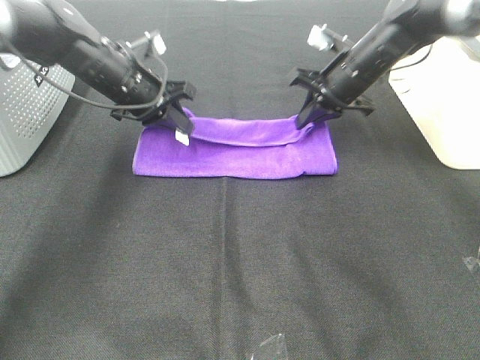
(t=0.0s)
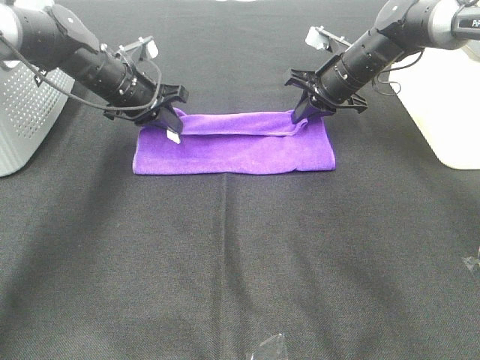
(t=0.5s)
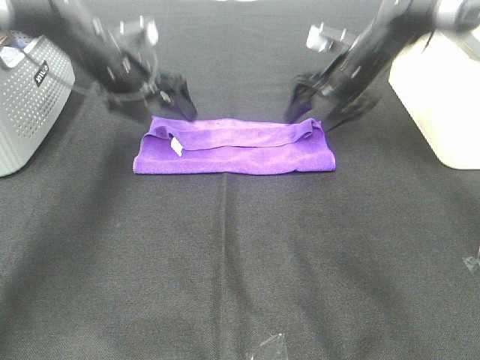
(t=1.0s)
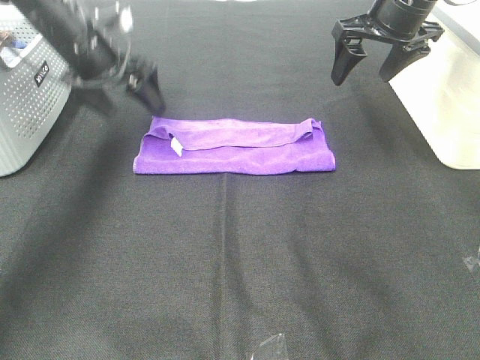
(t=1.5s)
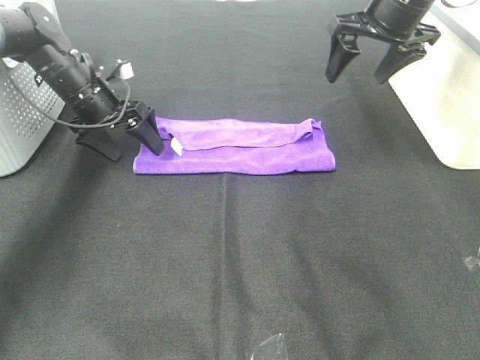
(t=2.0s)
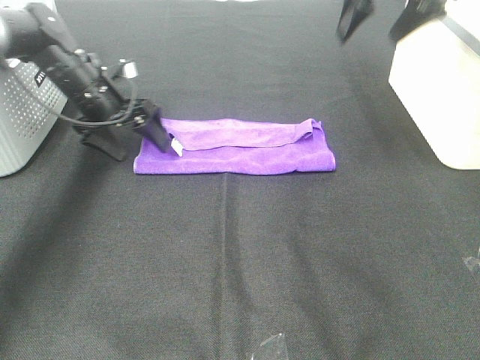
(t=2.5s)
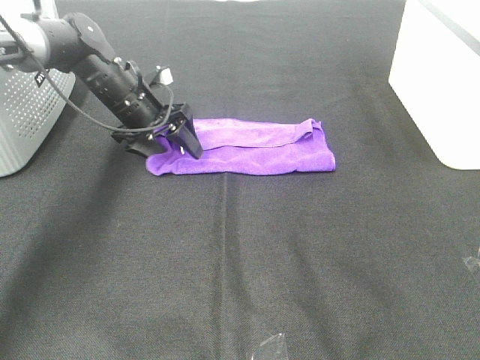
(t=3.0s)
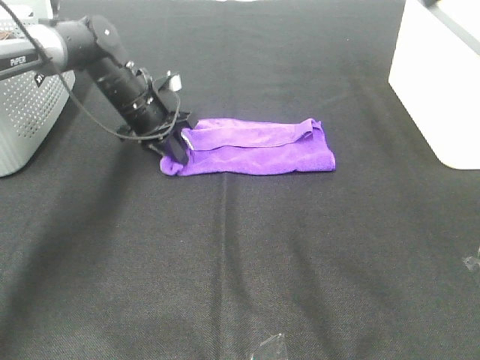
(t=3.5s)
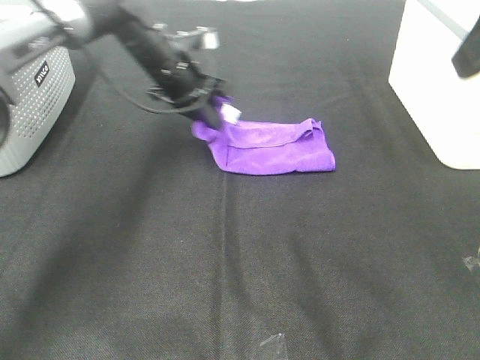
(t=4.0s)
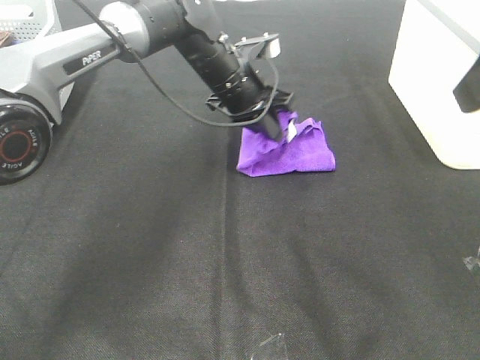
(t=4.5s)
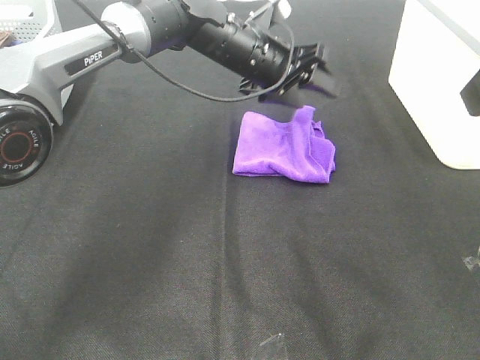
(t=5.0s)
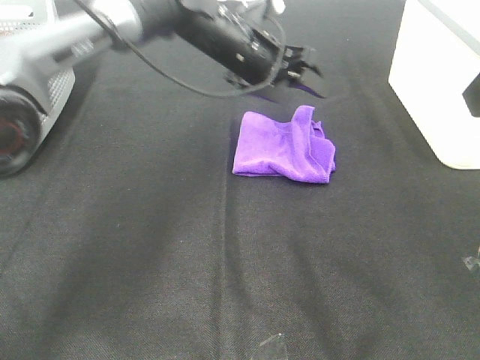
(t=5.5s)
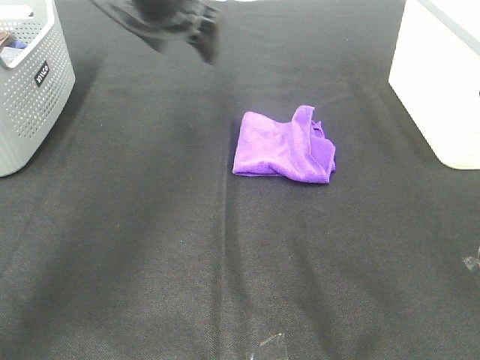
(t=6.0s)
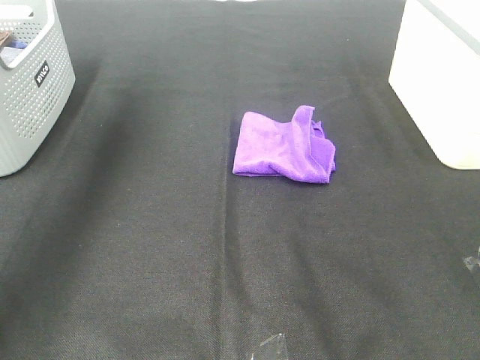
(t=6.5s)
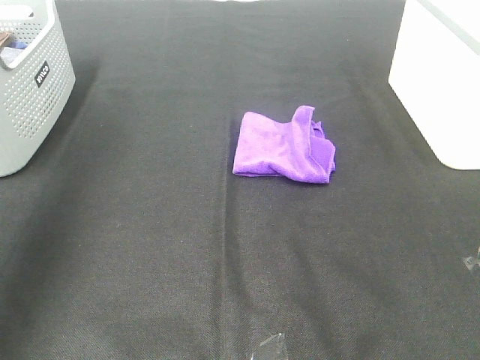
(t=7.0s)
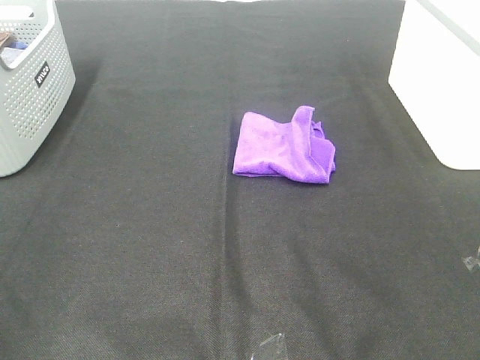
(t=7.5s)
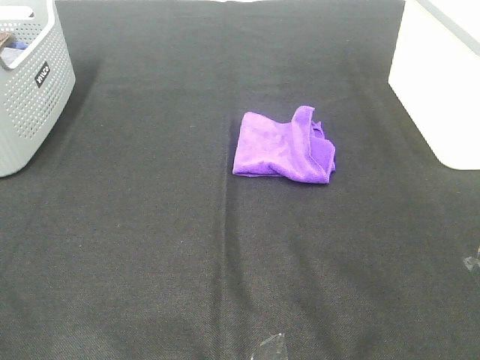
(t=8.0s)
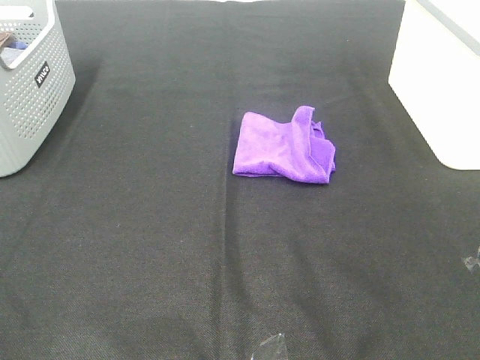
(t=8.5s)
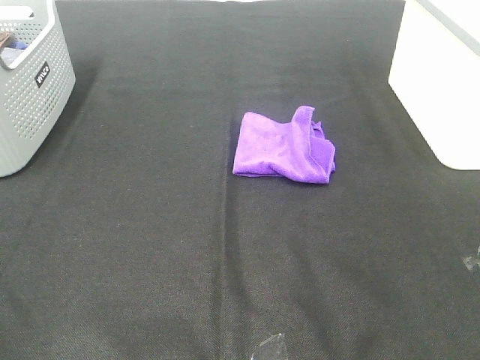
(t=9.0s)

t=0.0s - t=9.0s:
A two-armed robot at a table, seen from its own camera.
Task of the whole recording: Fold towels.
Step, t=1.0s - t=4.5s: Left hand: fold the purple towel from left to right.
t=0.0s - t=2.0s: The right gripper moves upward, approximately 15 cm, and opens up; the left gripper shifts about 5 cm to the left, and opens.
t=2.0s - t=4.5s: The right gripper shifts roughly 25 cm backward, while the left gripper heads to the right, covering some 20 cm, and closes.
t=4.5s - t=7.0s: The right gripper travels backward by approximately 15 cm. The left gripper shifts roughly 50 cm to the left, backward and upward, and opens.
t=7.0s - t=9.0s: The left gripper heads backward and downward, covering about 25 cm.
